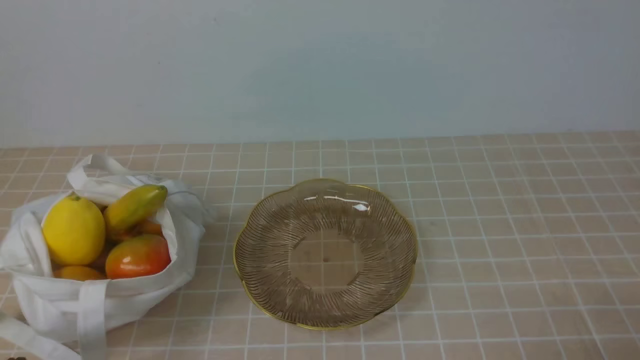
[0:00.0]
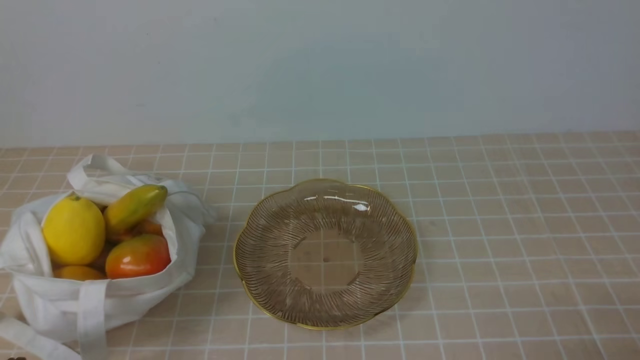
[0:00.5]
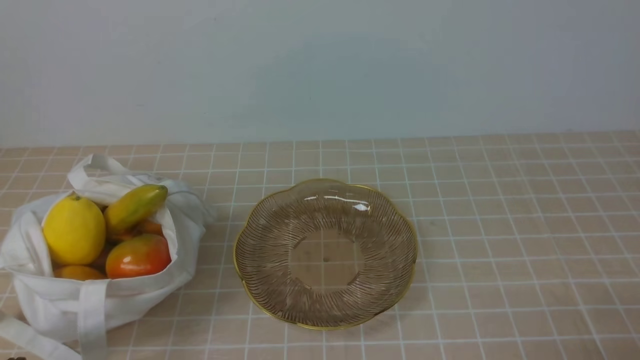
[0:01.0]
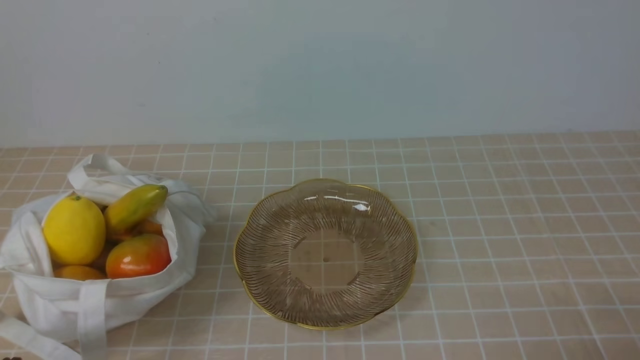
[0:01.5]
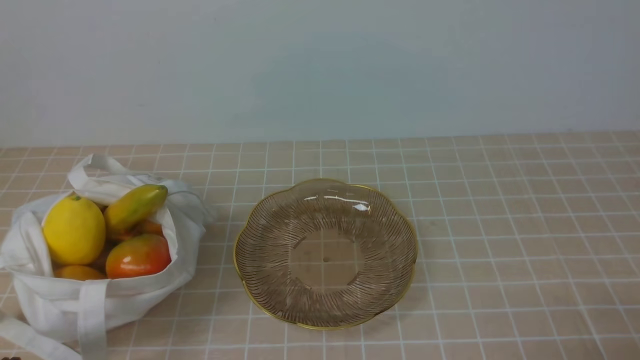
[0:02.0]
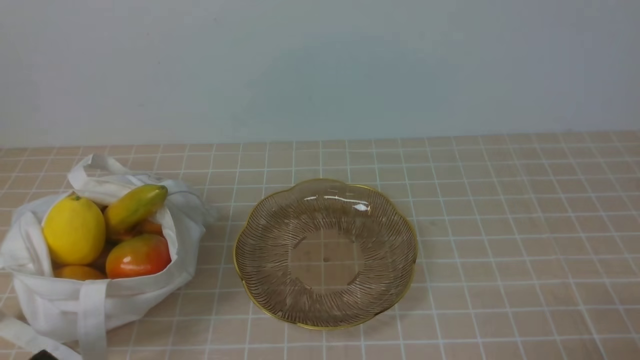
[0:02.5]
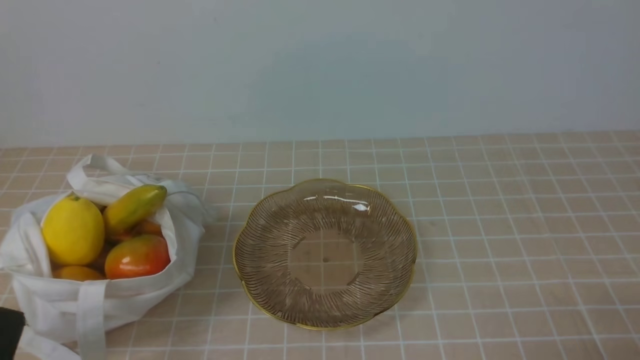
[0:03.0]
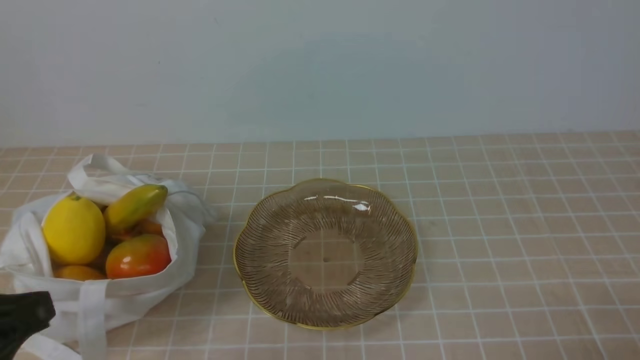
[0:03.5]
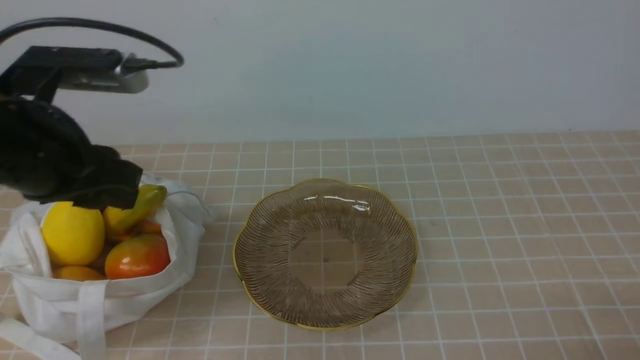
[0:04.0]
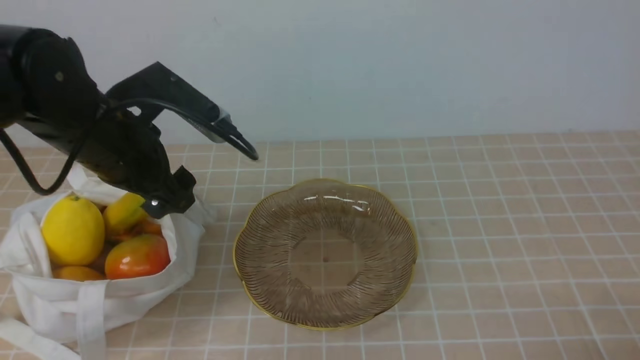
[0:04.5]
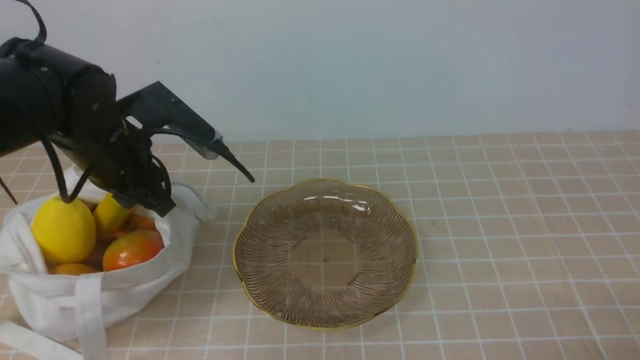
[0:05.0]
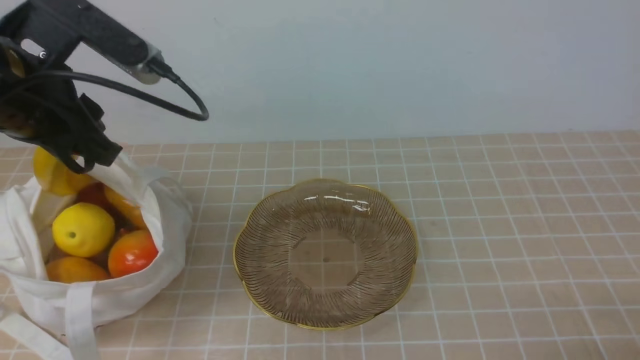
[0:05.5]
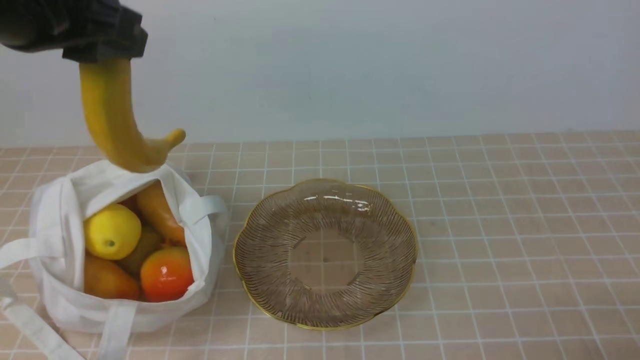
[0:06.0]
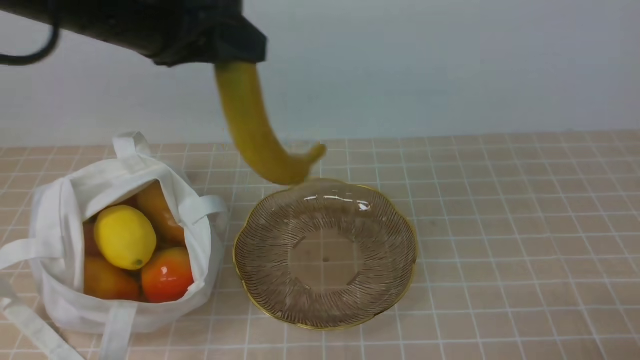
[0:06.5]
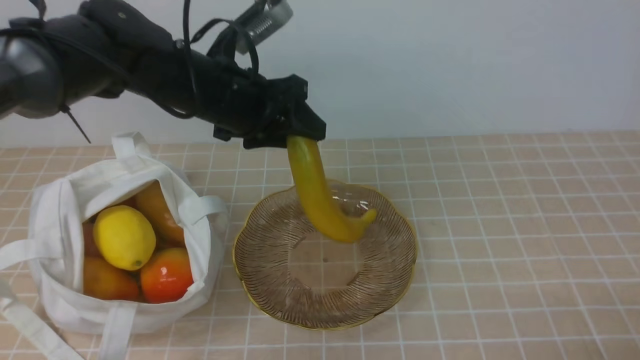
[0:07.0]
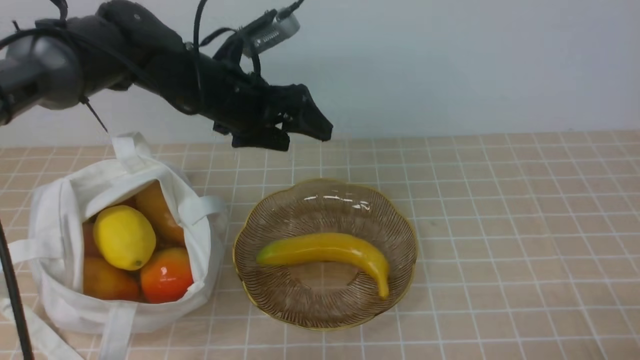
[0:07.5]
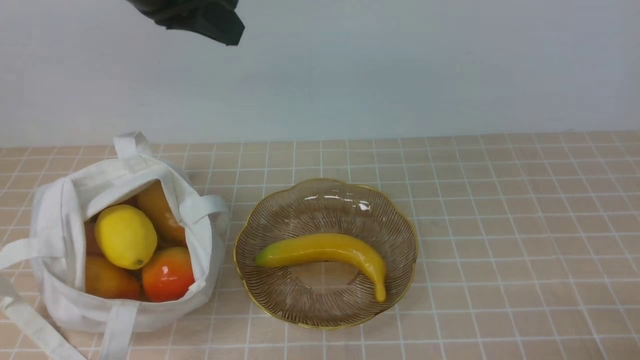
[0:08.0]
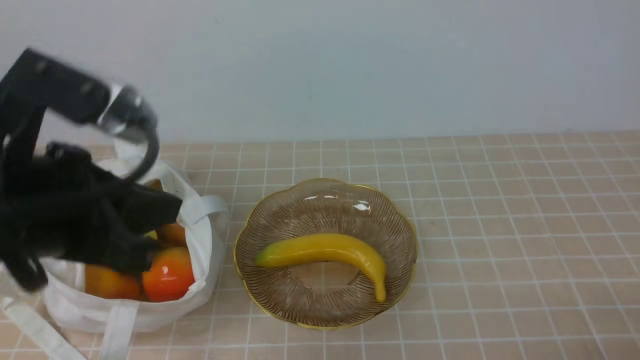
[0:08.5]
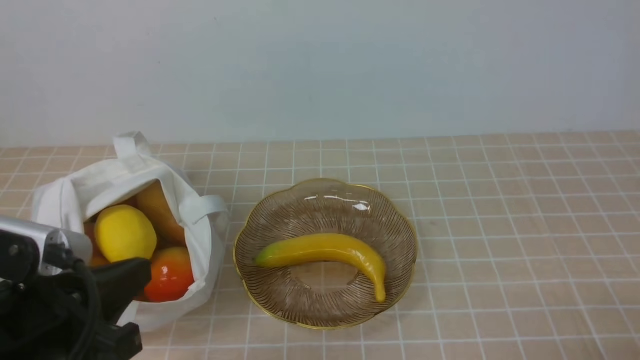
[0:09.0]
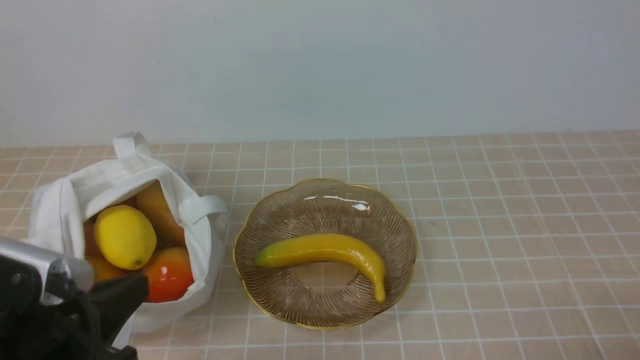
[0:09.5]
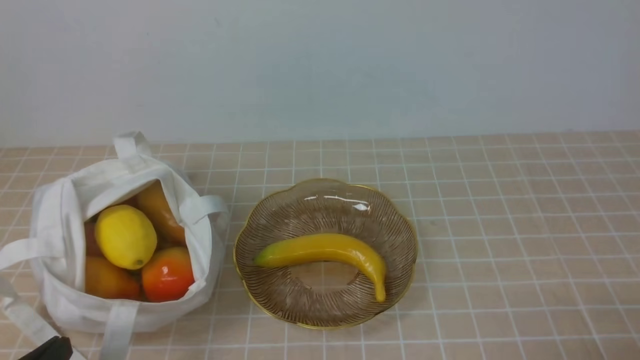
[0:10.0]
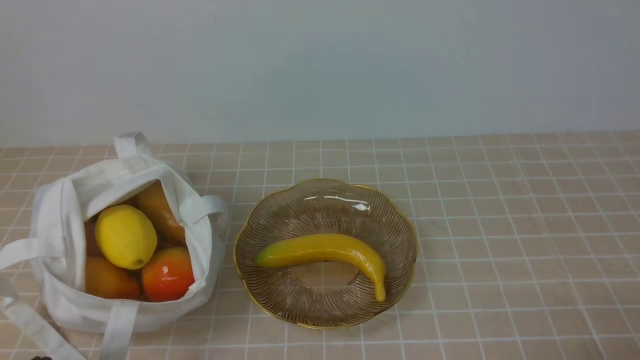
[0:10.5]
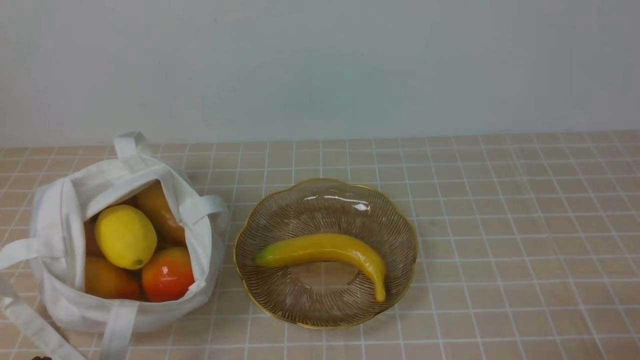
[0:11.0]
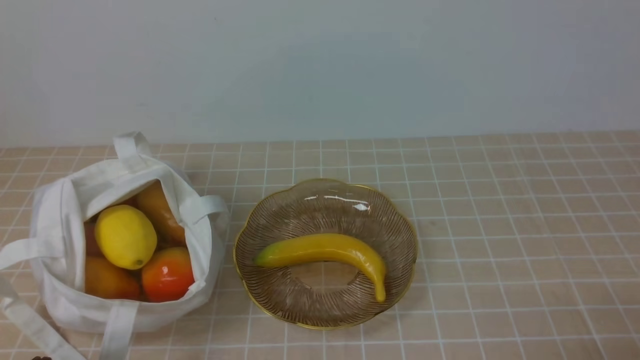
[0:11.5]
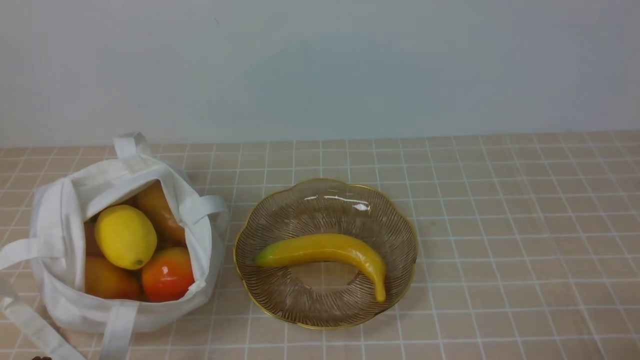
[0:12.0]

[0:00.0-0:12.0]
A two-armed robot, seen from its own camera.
Step, 0:00.0 to 0:05.0: use the left arm to grab a banana from the bag.
Step, 0:06.0 to 0:07.0: use the left arm to put the banana into the empty plate on the right.
0:02.0 to 0:04.0: The left gripper travels forward and upward by about 25 cm, and opens.
0:04.0 to 0:06.0: The left gripper shifts some 10 cm upward, and opens and closes again.
0:06.0 to 0:08.0: The left gripper goes about 10 cm forward and to the right, travels downward and back again, roughly 15 cm each way, and opens, then closes again.
0:08.0 to 0:10.0: The left gripper travels backward and downward by approximately 35 cm.

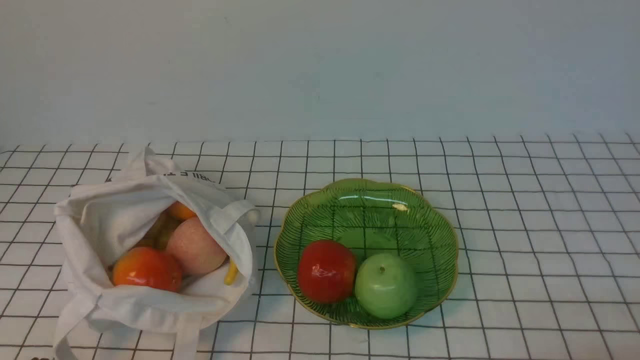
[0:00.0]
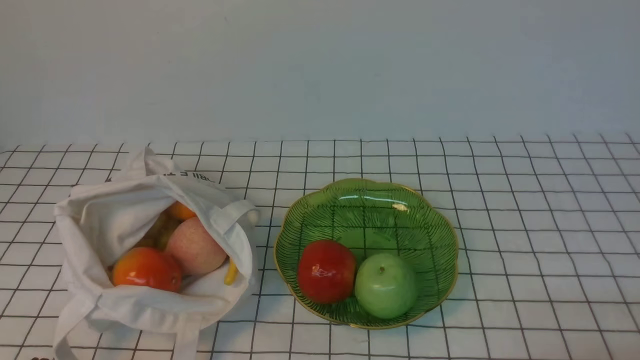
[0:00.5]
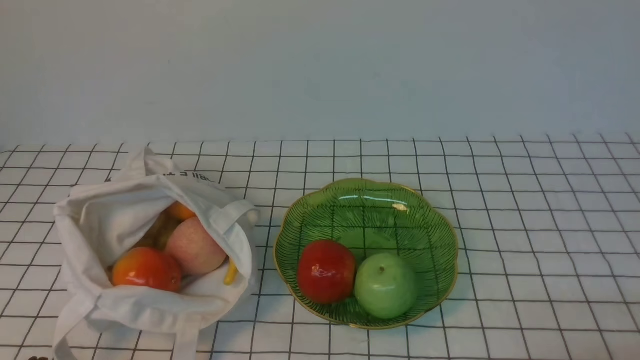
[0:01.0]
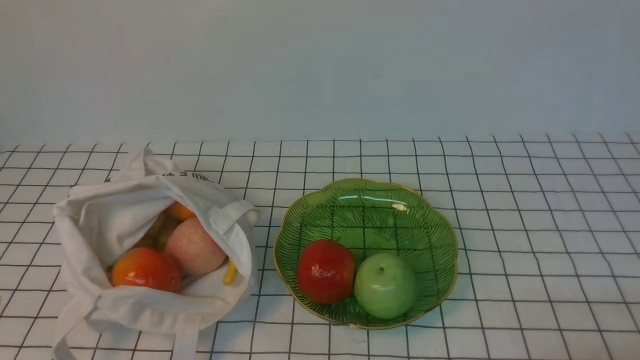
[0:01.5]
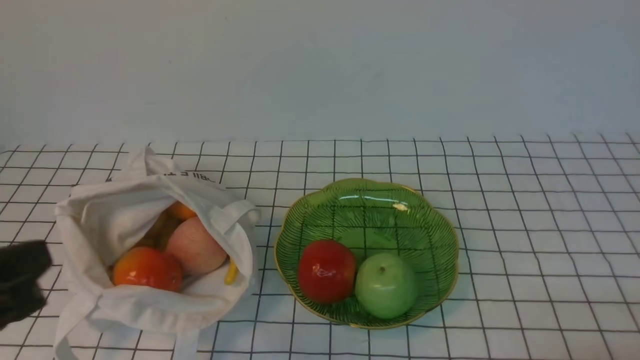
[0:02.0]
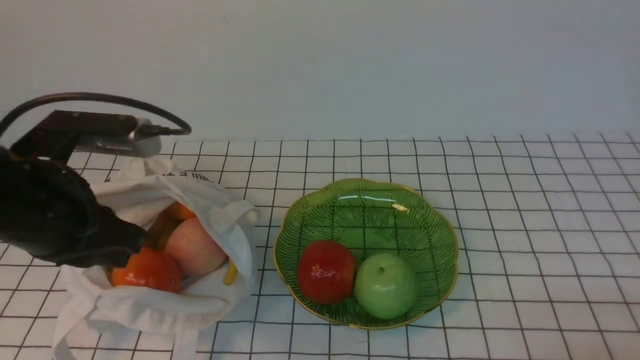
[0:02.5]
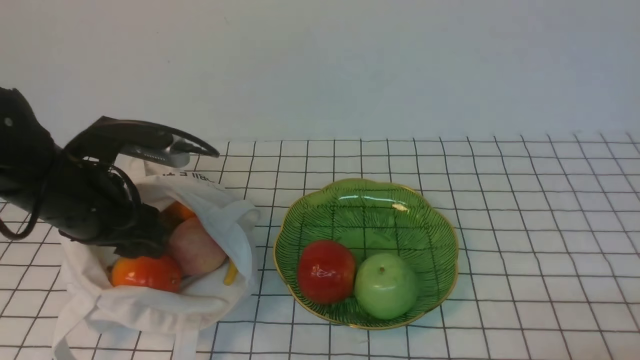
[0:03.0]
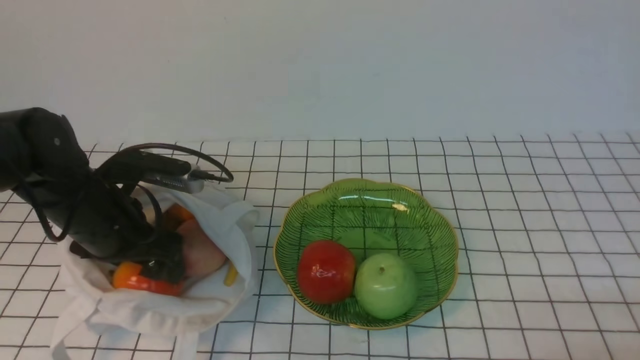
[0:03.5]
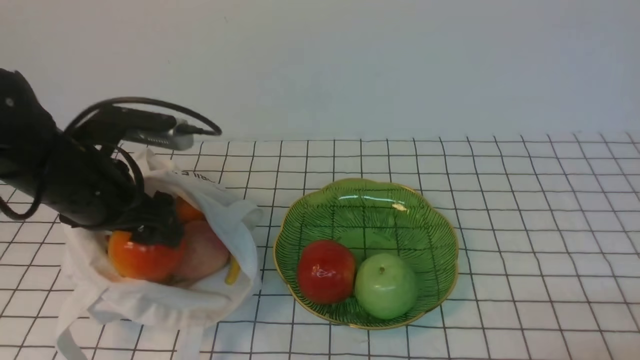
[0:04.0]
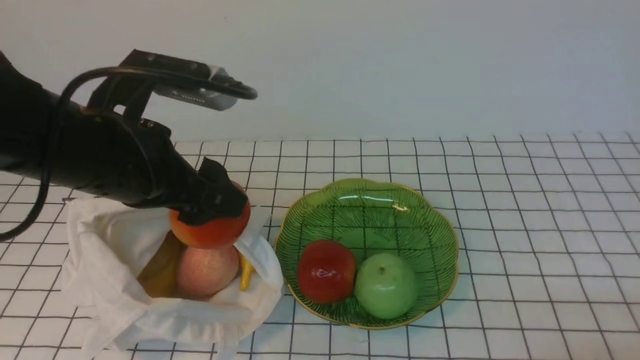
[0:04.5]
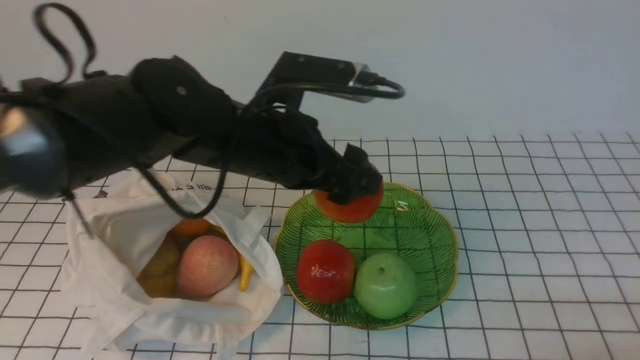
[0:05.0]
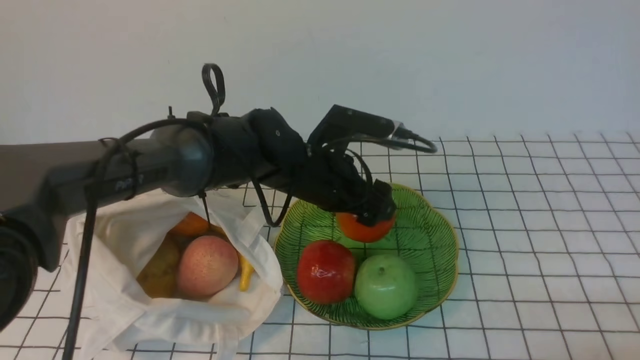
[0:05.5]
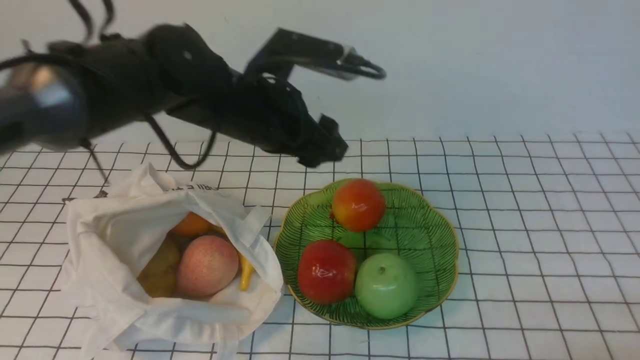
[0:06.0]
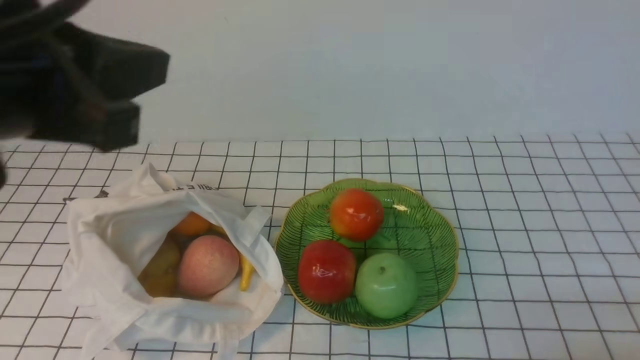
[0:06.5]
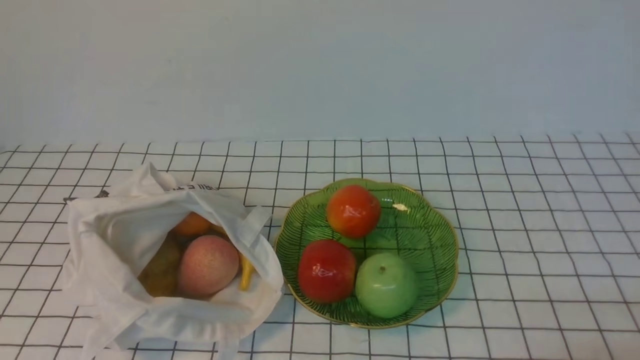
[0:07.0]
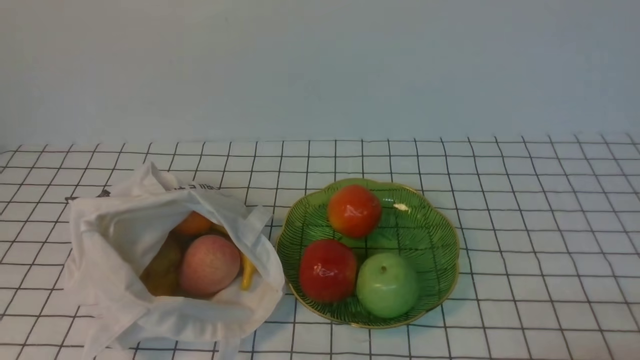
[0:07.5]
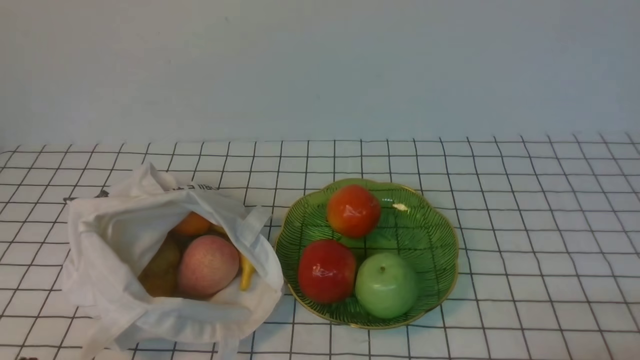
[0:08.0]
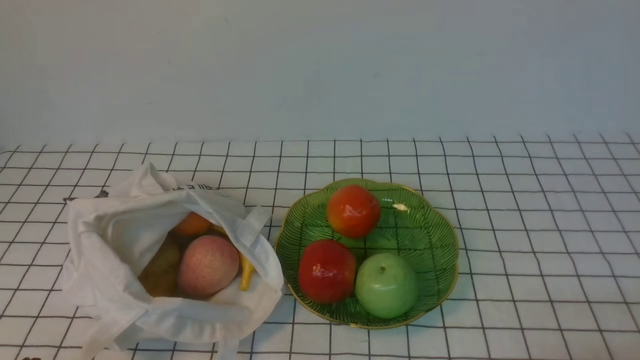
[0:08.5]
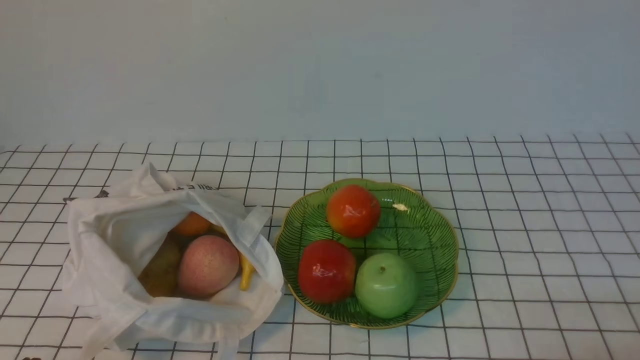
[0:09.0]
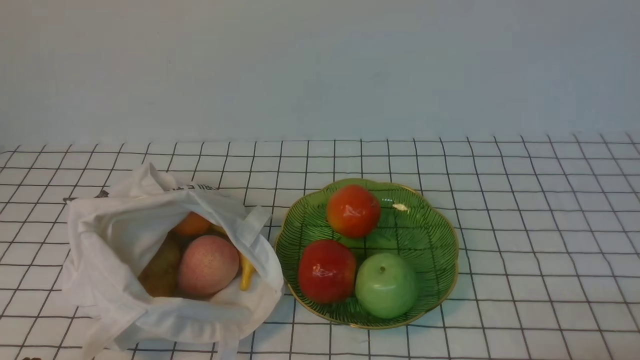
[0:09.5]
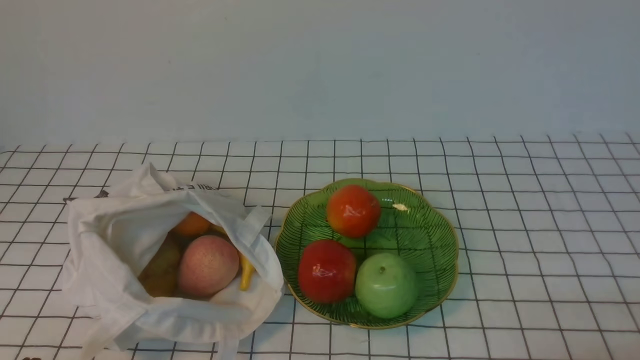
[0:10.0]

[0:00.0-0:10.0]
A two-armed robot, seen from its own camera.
Step, 0:00.0 to 0:03.5: use the left arm to grab a pomegranate from the bag.
Step, 0:04.0 to 0:05.5: use the left arm to put the pomegranate into the empty plate on the right.
0:00.0 to 0:02.0: The left gripper goes some 15 cm upward.
0:02.0 to 0:04.0: The left gripper heads forward, covering roughly 20 cm, and opens.
0:04.0 to 0:06.0: The left gripper shifts about 15 cm to the right and forward, and closes up.
0:06.0 to 0:08.0: The left gripper travels backward, to the left and downward by some 35 cm, and closes.
